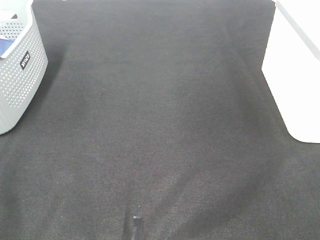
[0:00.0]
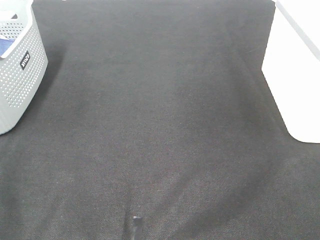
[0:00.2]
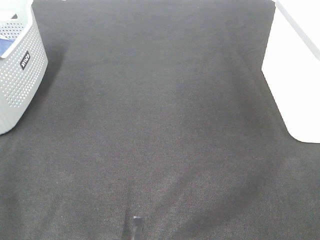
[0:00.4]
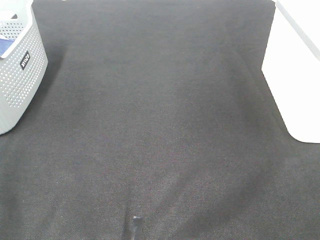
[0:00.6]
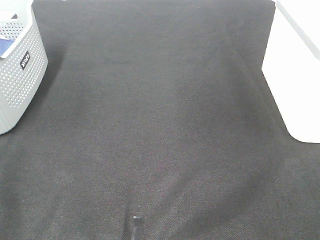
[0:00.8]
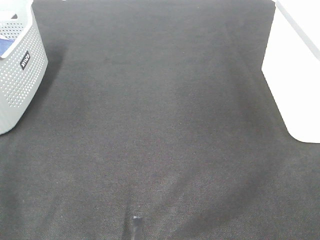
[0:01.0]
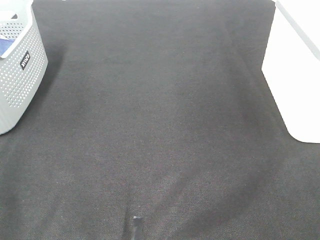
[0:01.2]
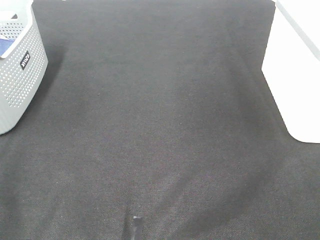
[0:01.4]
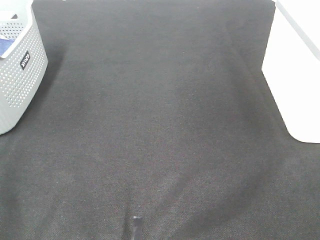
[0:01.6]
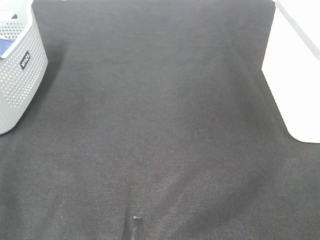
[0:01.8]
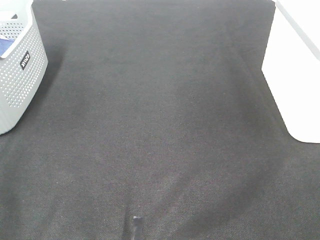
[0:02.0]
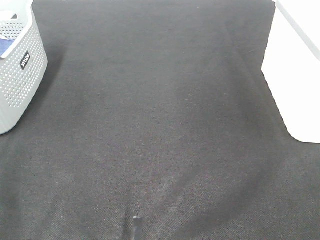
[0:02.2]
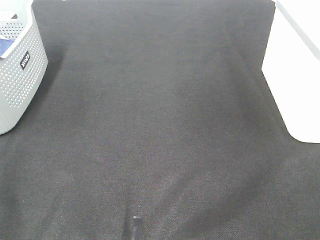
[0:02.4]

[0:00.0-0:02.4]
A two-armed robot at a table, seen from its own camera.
0:01.2 to 0:02.4: Both grippers stay put.

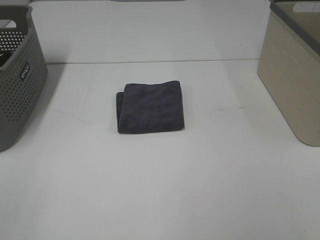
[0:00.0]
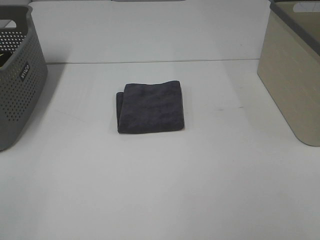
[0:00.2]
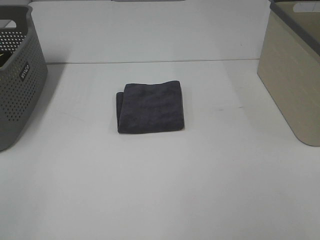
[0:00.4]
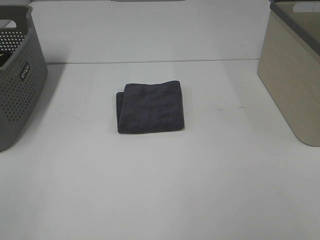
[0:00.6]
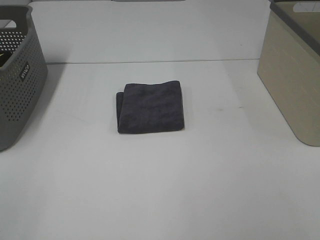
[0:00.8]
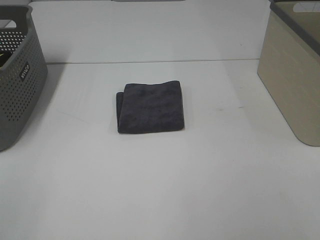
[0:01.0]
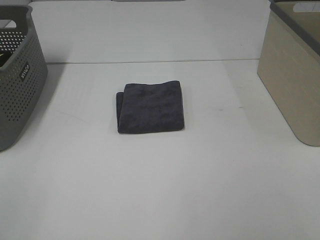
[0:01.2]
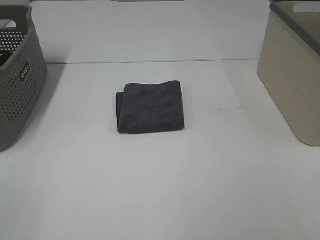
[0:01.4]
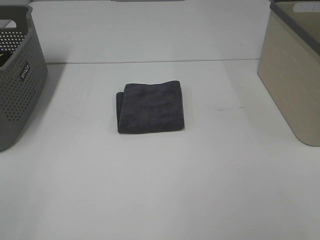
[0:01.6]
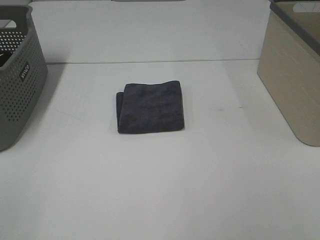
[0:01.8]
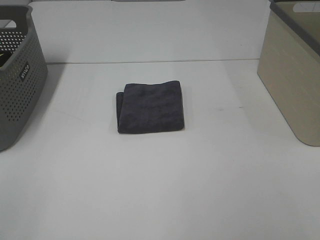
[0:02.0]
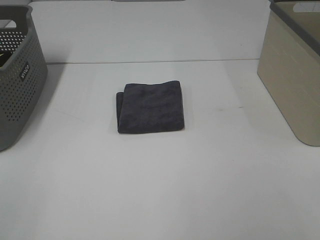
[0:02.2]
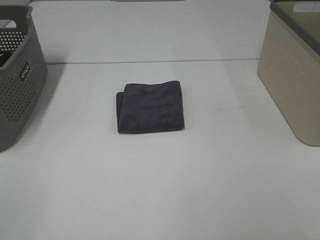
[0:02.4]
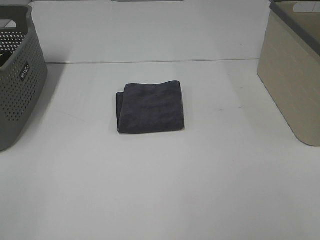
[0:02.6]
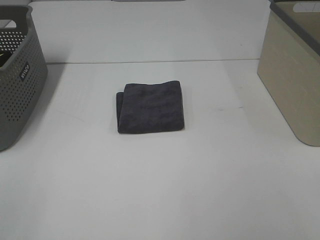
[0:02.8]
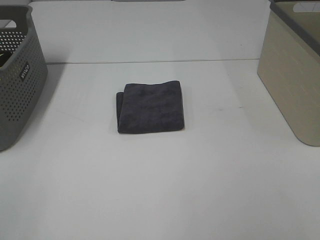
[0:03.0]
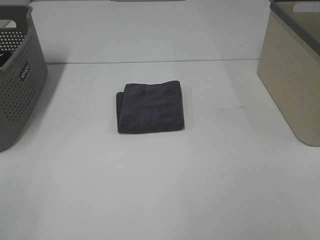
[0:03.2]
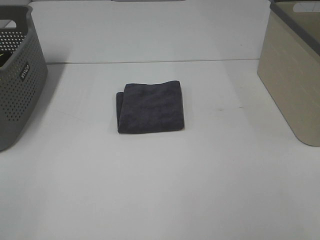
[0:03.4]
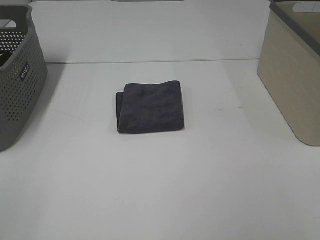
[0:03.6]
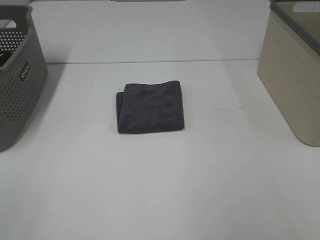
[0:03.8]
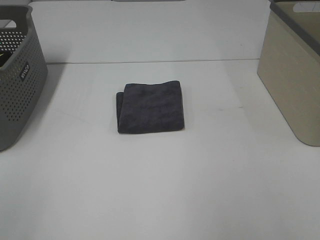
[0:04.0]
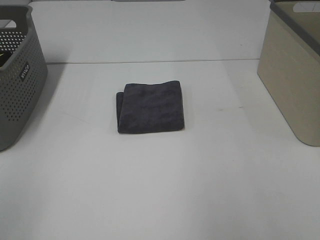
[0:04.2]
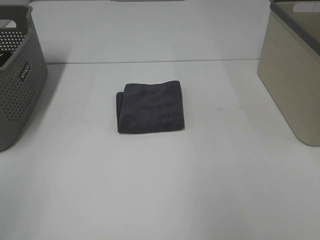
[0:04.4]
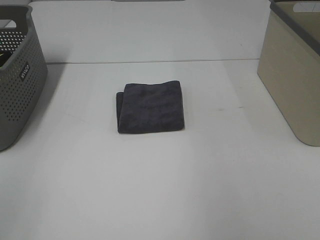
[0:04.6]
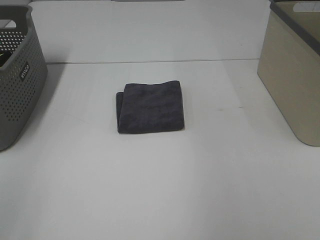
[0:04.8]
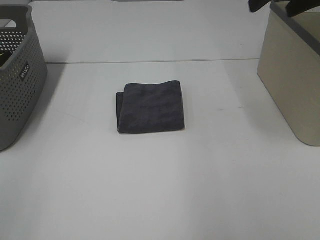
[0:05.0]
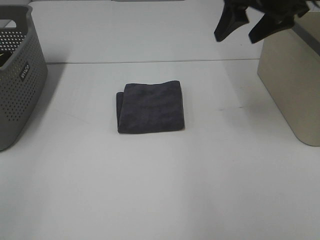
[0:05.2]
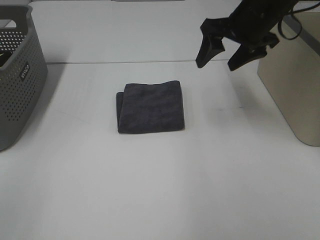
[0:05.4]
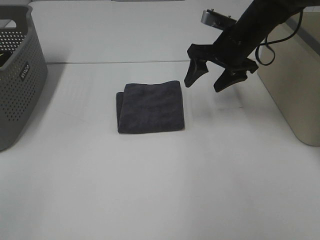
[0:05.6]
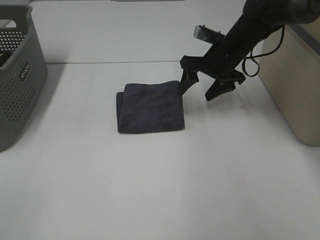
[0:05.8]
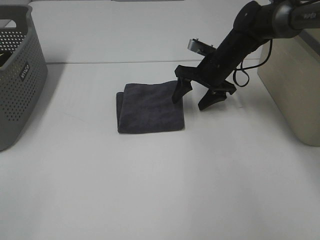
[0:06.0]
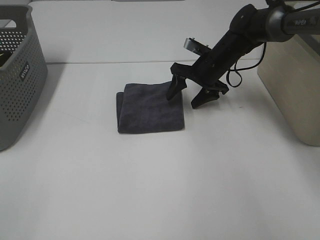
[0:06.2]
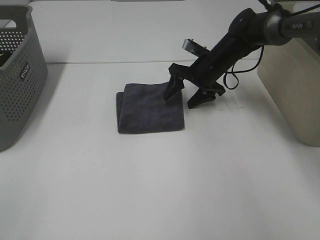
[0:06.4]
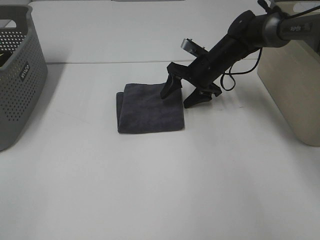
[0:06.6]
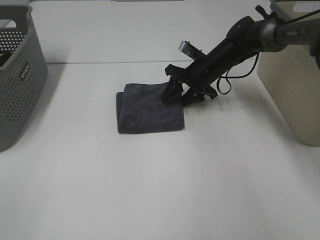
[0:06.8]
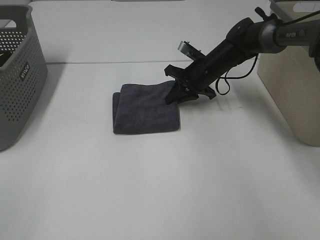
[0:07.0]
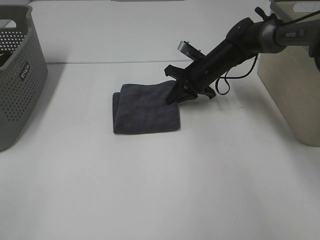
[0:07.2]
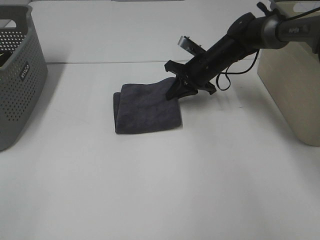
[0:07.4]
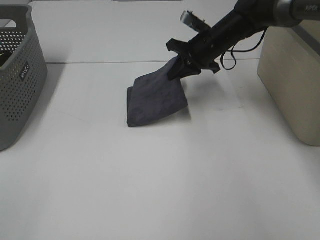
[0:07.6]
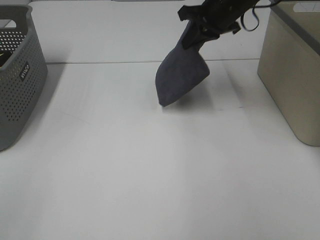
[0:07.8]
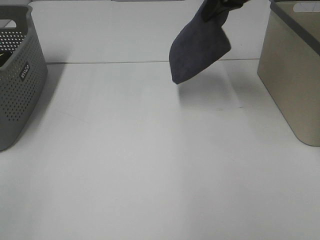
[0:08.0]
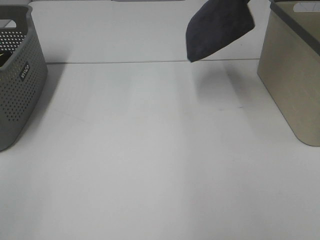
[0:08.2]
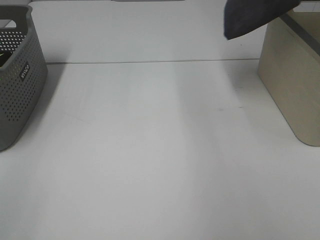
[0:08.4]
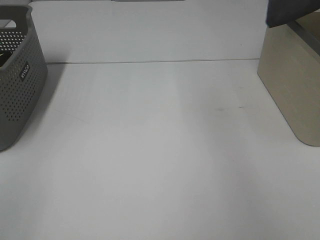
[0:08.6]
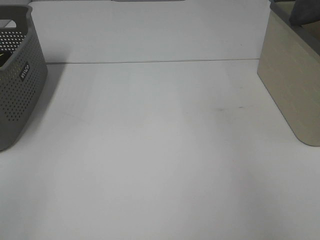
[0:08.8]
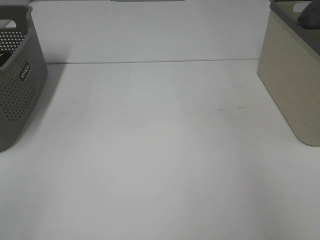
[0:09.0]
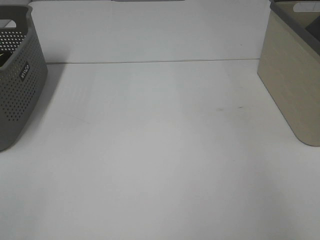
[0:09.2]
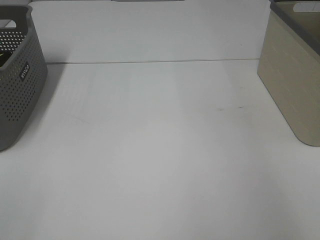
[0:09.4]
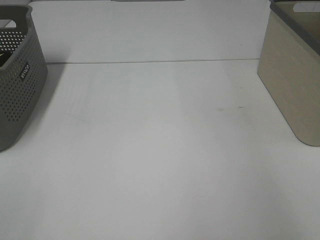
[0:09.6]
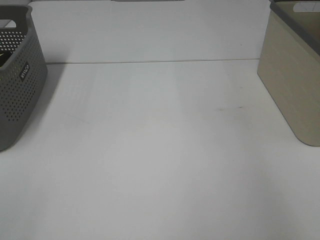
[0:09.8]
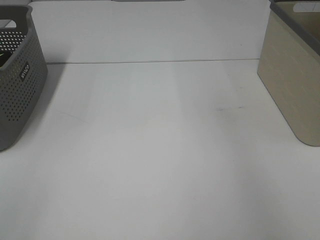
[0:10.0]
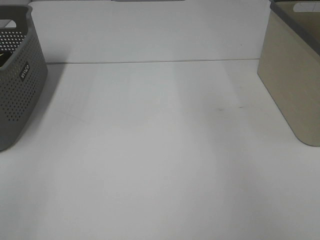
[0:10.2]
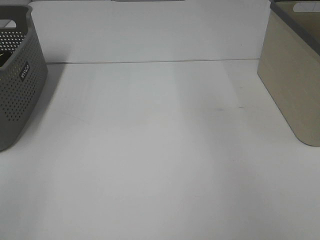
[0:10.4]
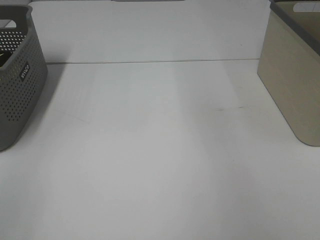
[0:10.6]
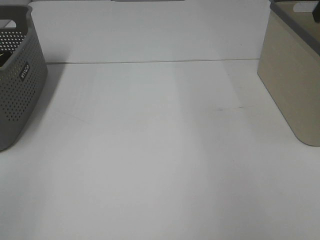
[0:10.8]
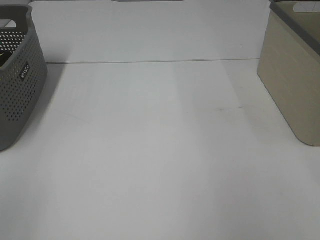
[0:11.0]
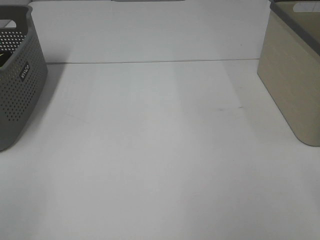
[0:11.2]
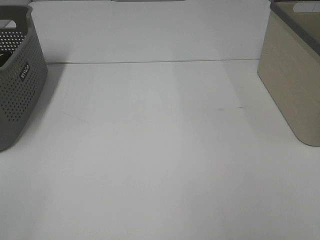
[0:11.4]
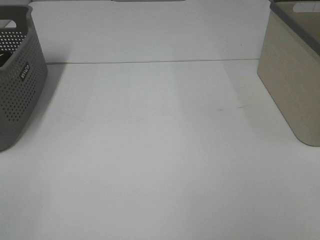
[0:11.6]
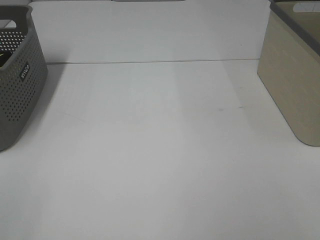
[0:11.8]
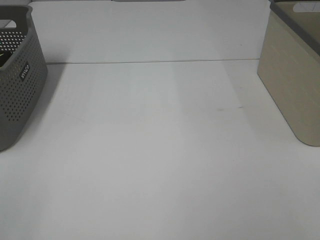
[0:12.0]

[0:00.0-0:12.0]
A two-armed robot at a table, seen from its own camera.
Step, 0:00.0 to 0:07.0: Right hand: grab the folded grey towel.
Step, 0:07.2 to 0:09.6: Right hand: place the grey towel in right basket.
0:00.0 to 0:03.0: Neither gripper changes place.
0:04.4 to 0:06.0: The right gripper moves downward, forward and to the left, some 40 cm.
0:06.0 to 0:07.6: The right gripper closes.
0:07.6 to 0:09.0: The right gripper shifts roughly 35 cm to the right and upward.

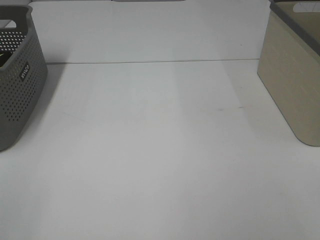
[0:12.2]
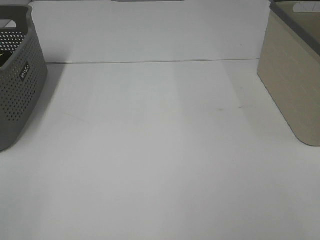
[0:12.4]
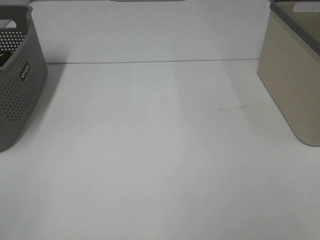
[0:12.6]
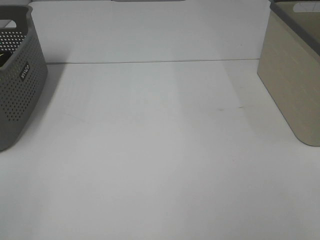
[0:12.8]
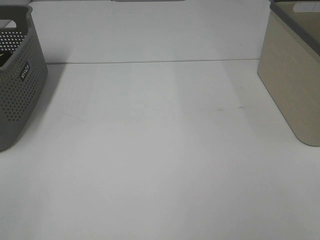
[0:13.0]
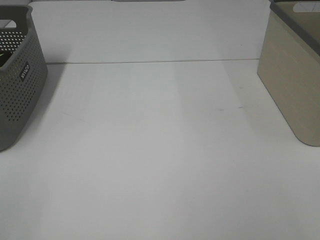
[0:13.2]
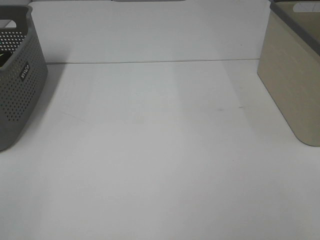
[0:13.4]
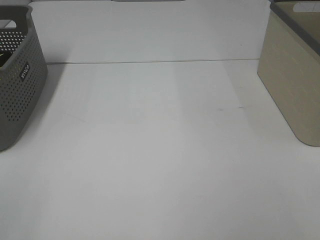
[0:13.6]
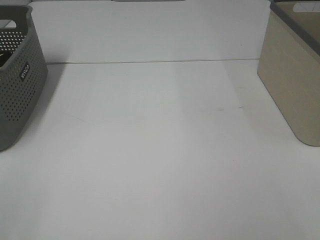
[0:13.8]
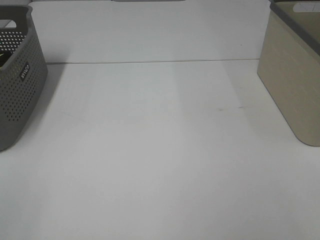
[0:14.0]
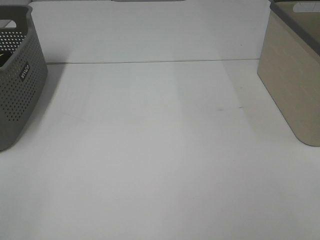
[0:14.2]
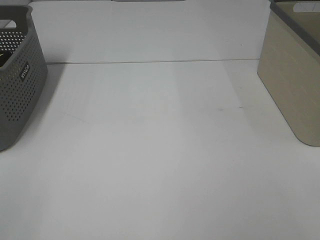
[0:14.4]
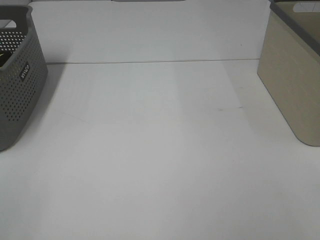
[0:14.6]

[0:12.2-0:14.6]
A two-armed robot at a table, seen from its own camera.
0:12.2 to 0:14.6: The two grippers keep their place.

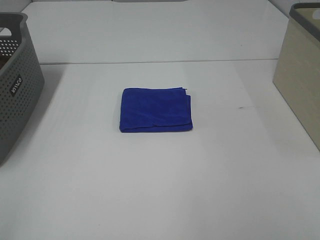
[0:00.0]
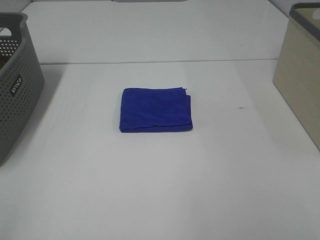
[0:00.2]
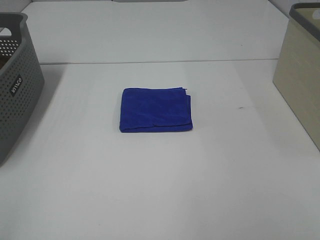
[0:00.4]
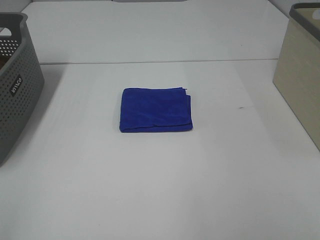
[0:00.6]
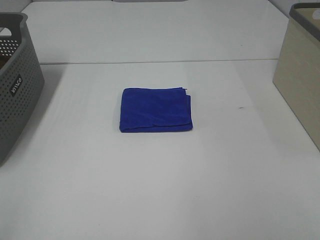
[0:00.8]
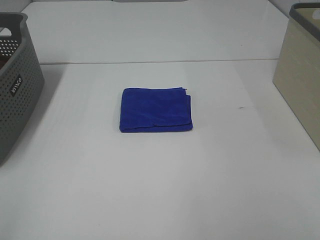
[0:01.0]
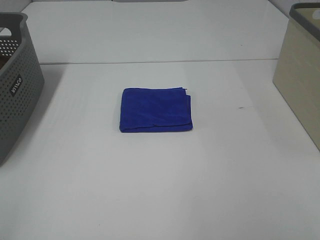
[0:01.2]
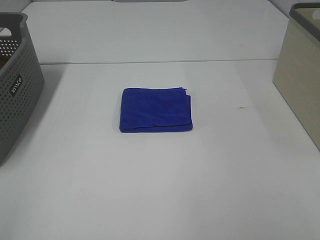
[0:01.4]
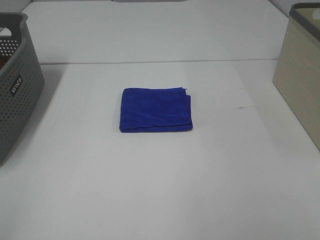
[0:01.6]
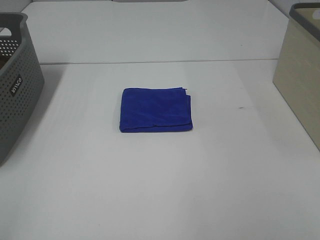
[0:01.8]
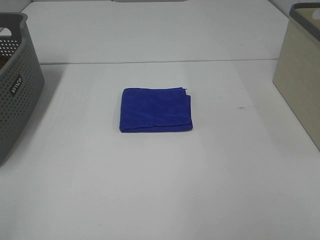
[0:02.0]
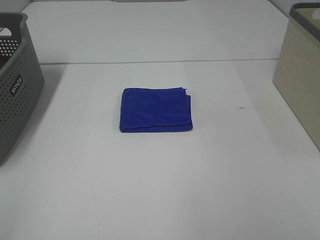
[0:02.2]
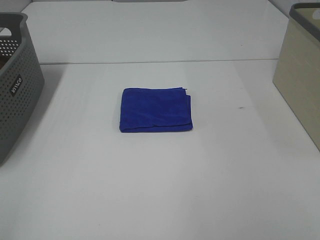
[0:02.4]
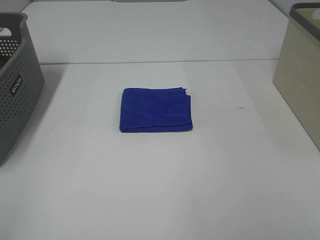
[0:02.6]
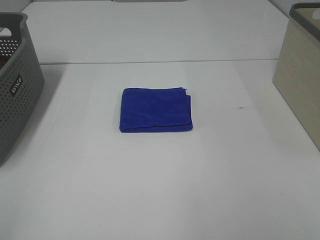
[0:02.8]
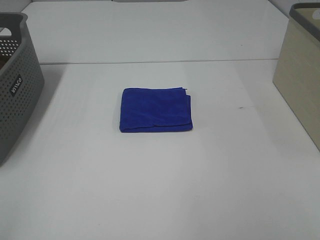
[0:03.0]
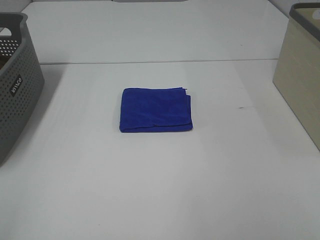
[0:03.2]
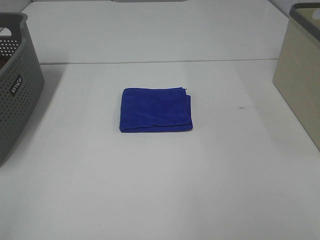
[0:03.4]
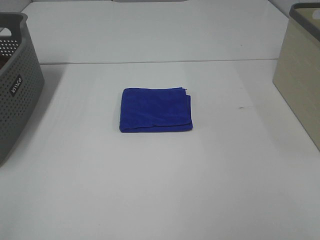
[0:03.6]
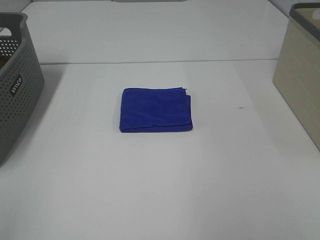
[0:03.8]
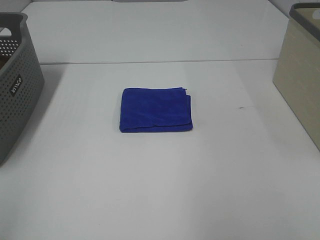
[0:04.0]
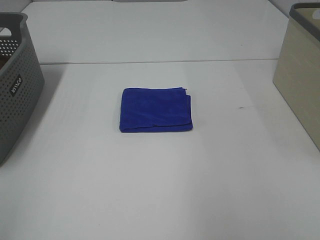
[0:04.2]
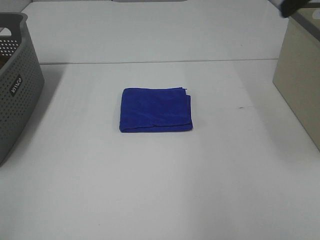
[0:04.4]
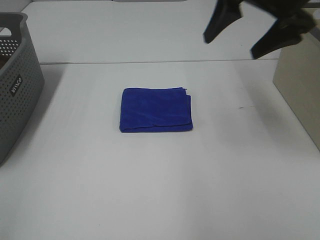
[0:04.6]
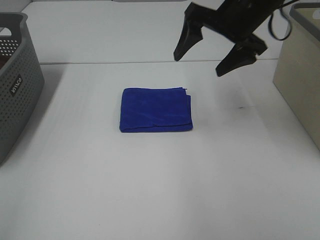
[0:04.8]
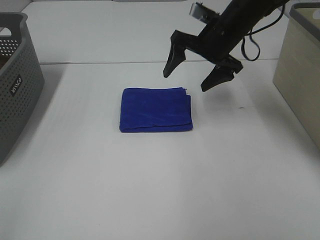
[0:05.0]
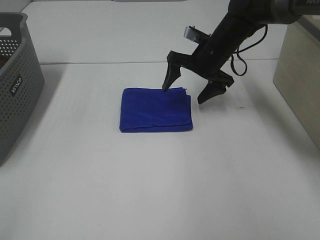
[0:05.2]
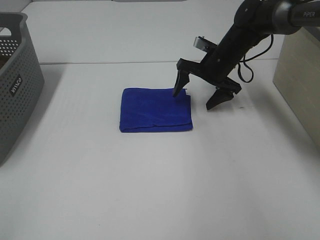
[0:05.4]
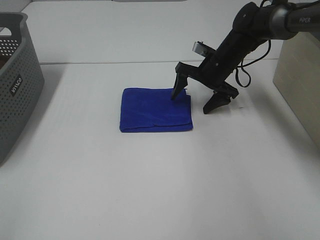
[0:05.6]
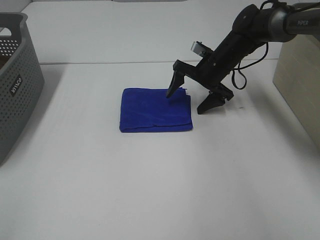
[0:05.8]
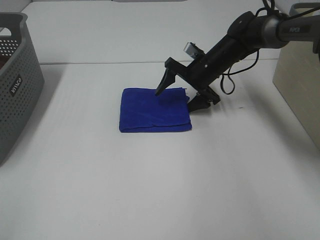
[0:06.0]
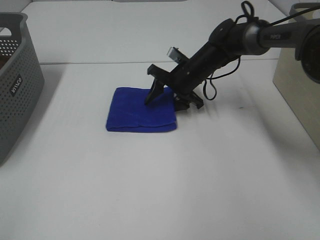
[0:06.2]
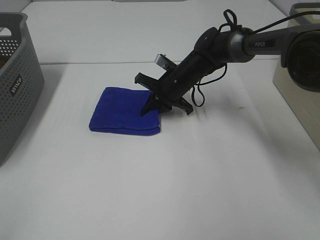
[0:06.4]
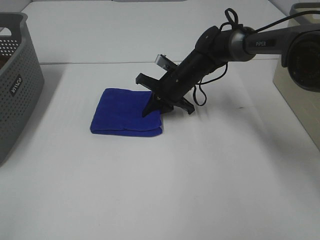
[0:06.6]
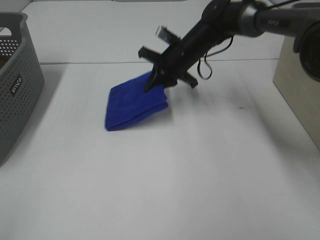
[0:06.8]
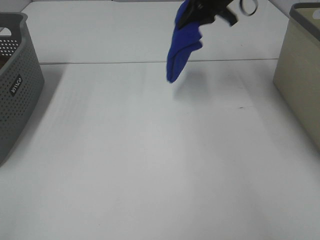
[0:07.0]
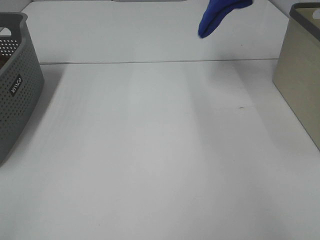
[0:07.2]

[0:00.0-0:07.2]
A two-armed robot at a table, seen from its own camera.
Step, 0:00.0 to 0:06.4: Right hand: grab the folded blue towel.
0:00.0 to 0:02.8: The two grippers keep their place.
0:04.4 to 0:05.8: The right gripper shifts about 30 cm downward and forward.
0:05.8 to 0:07.2: The right gripper goes some 25 cm upward, and closes.
